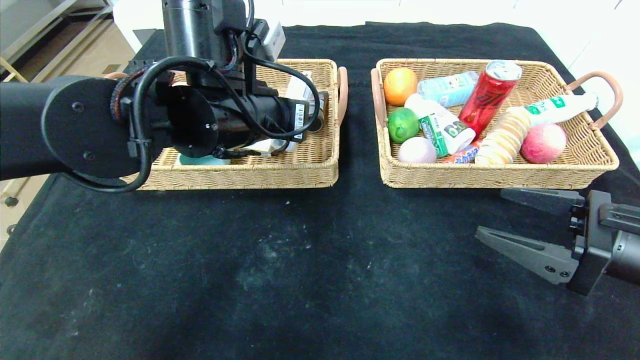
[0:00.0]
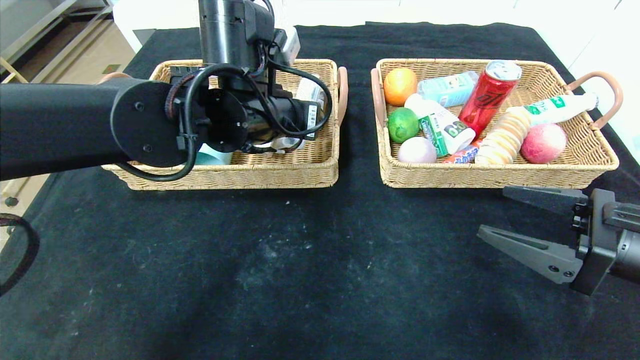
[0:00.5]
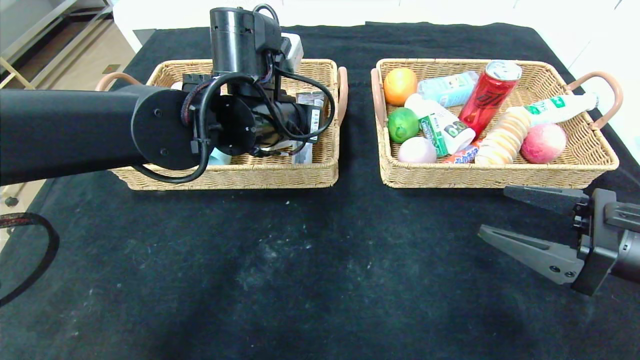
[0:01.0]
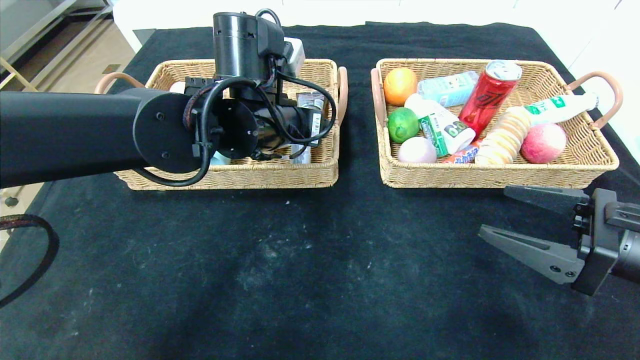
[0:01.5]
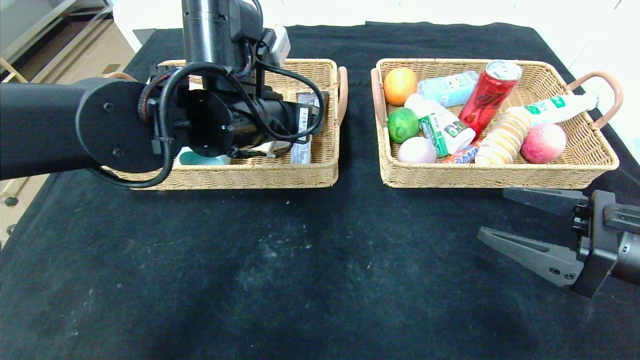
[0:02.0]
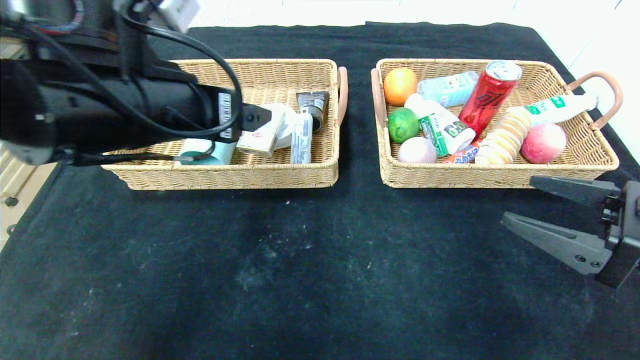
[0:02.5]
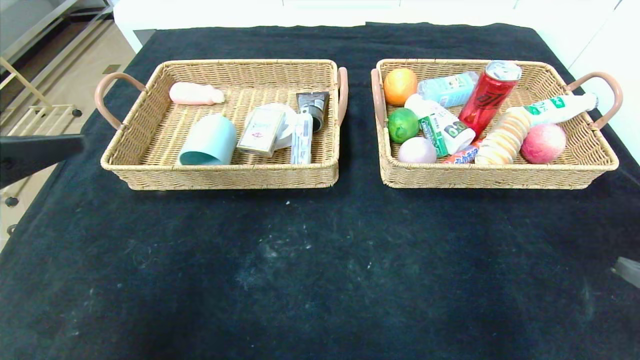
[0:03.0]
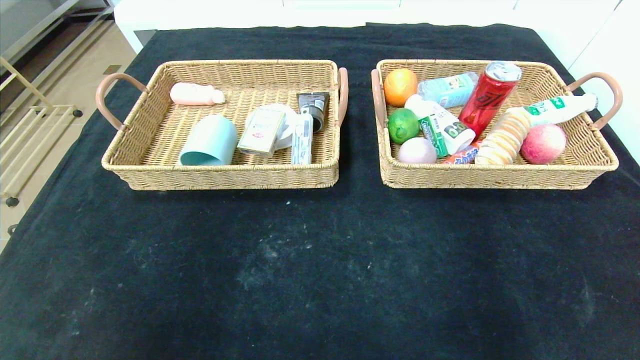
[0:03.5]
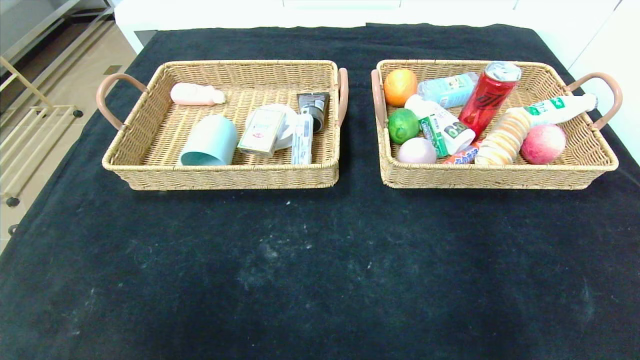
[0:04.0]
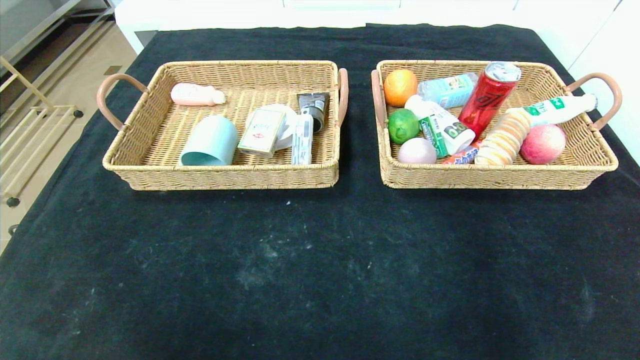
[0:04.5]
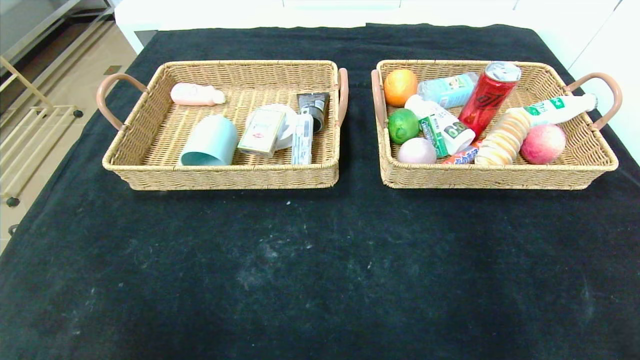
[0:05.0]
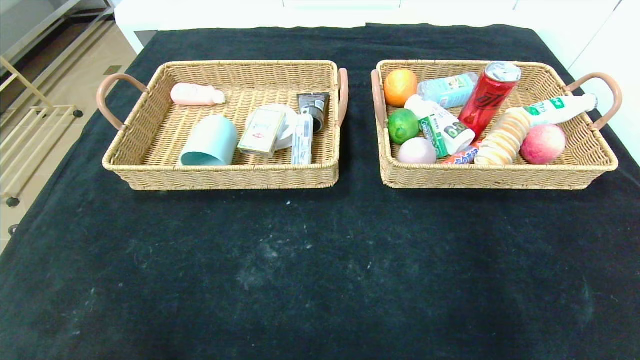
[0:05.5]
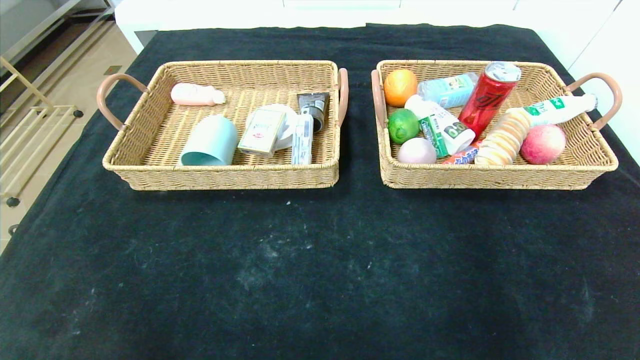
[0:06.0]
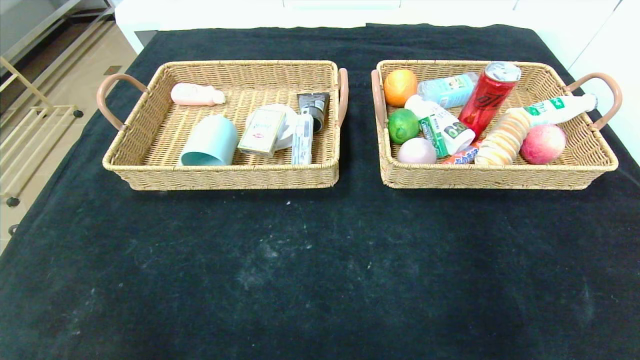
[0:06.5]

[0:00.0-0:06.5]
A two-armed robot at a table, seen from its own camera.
0:00.0 to 0:02.0: The left gripper opens its fingers.
0:02.0 to 0:04.5: The right gripper is displaced backward by approximately 25 cm. Meanwhile the left gripper goes some 50 cm backward and to the left.
